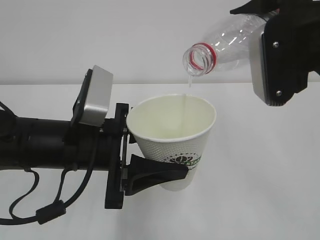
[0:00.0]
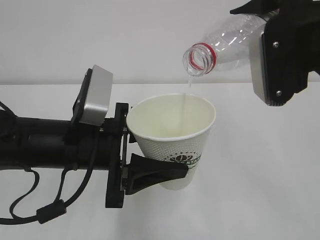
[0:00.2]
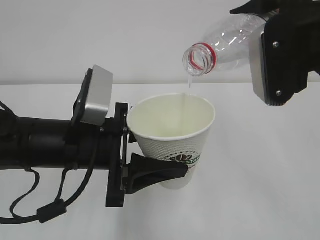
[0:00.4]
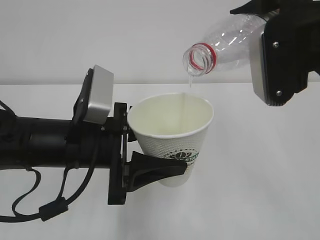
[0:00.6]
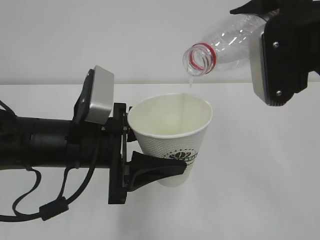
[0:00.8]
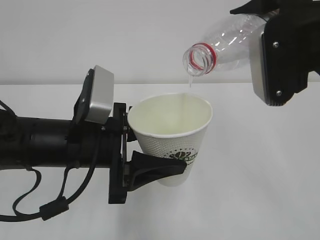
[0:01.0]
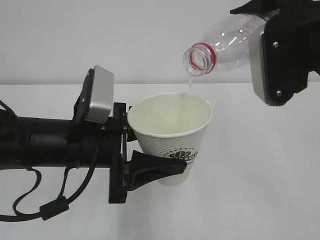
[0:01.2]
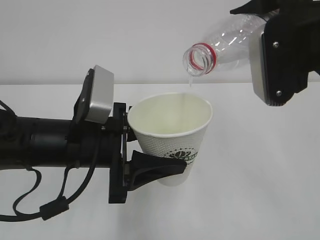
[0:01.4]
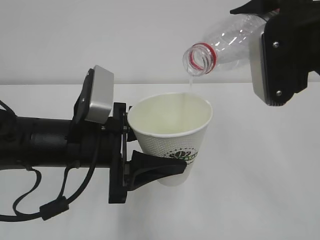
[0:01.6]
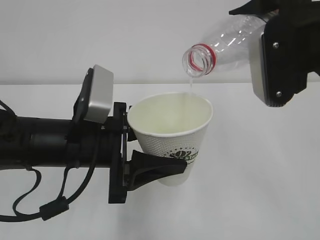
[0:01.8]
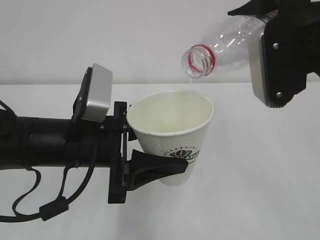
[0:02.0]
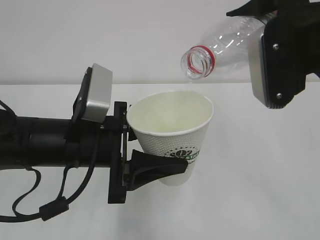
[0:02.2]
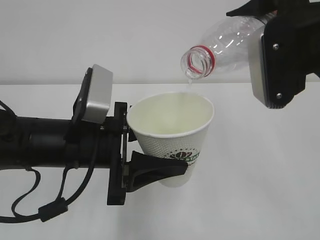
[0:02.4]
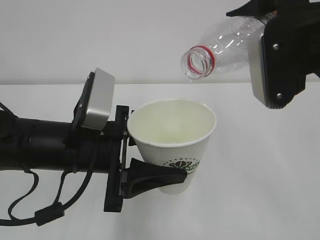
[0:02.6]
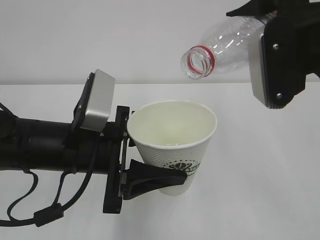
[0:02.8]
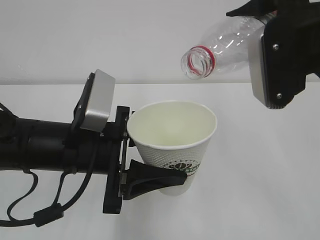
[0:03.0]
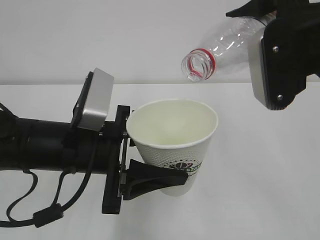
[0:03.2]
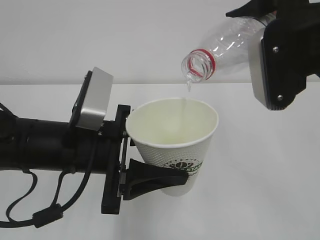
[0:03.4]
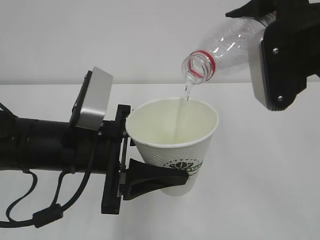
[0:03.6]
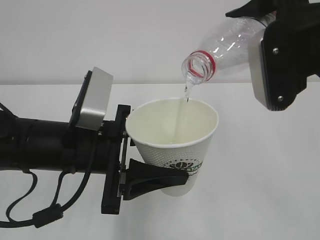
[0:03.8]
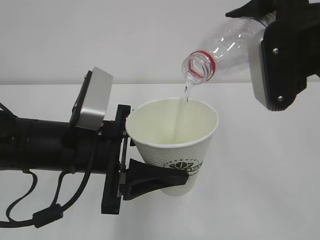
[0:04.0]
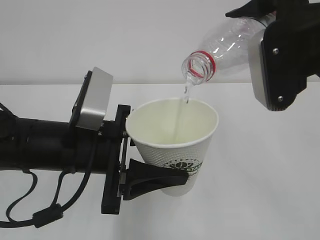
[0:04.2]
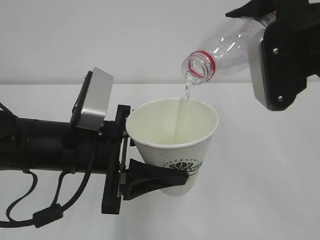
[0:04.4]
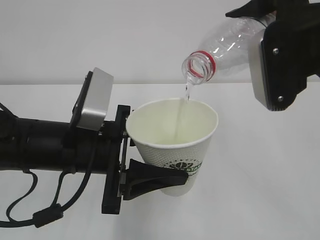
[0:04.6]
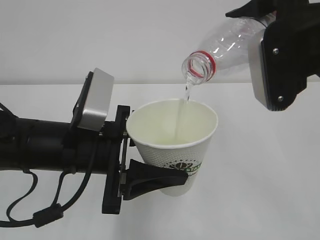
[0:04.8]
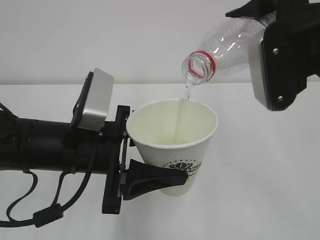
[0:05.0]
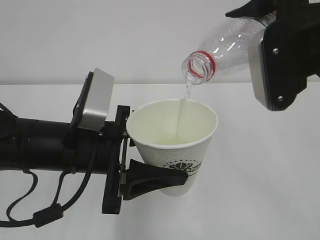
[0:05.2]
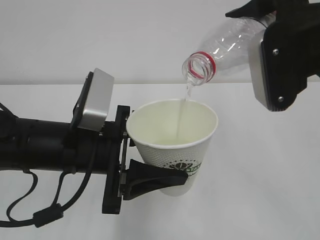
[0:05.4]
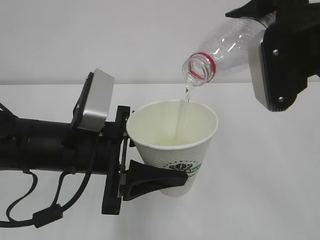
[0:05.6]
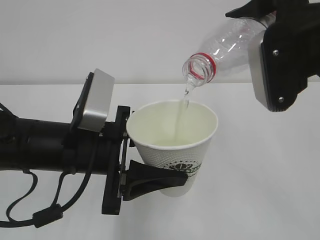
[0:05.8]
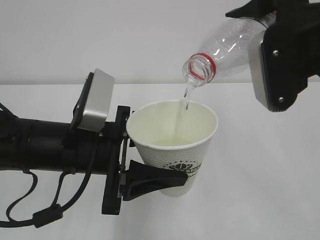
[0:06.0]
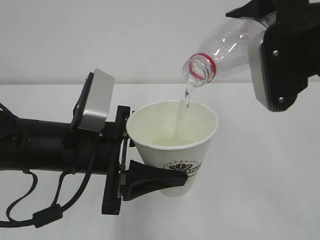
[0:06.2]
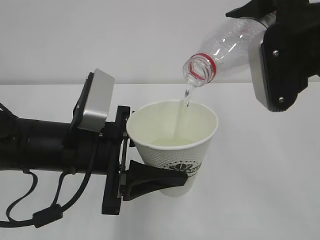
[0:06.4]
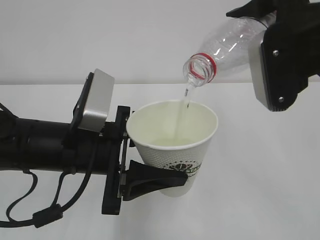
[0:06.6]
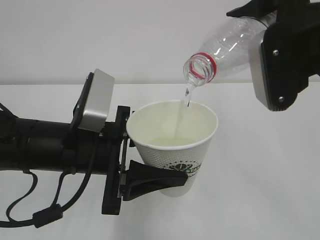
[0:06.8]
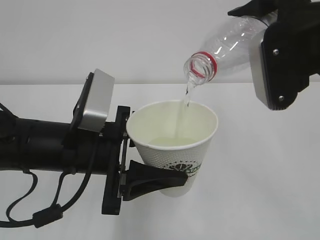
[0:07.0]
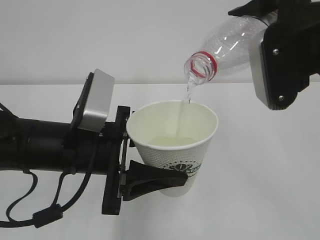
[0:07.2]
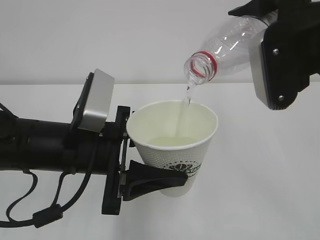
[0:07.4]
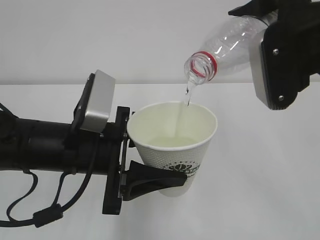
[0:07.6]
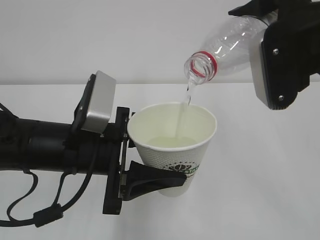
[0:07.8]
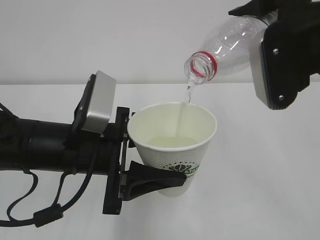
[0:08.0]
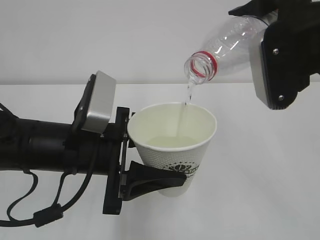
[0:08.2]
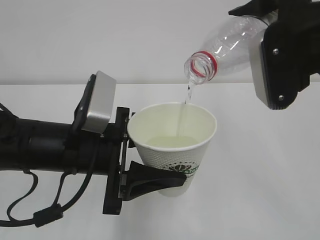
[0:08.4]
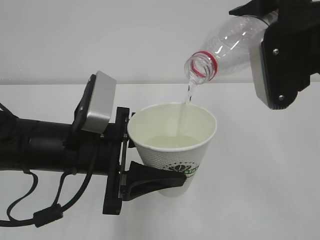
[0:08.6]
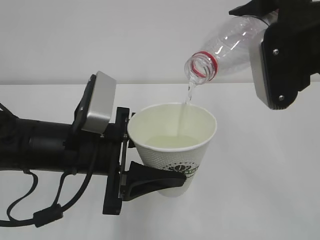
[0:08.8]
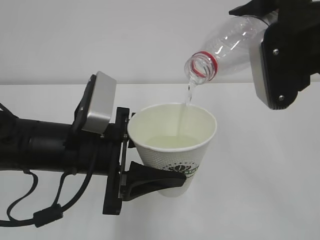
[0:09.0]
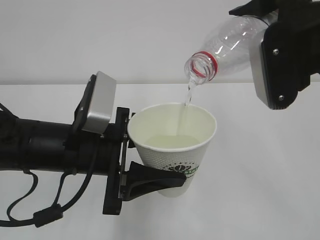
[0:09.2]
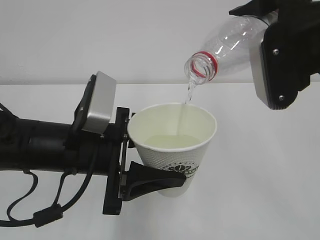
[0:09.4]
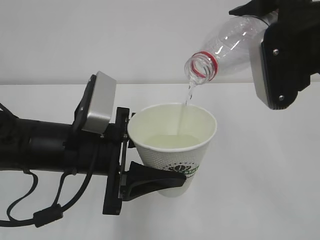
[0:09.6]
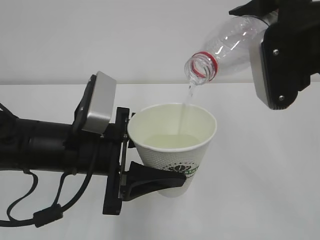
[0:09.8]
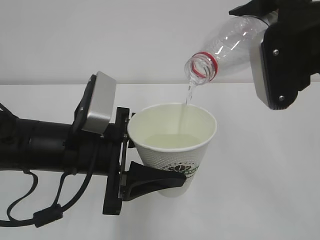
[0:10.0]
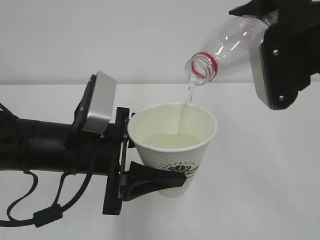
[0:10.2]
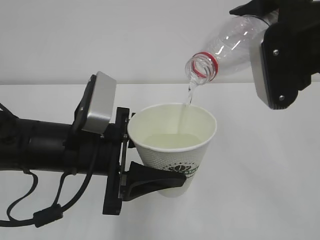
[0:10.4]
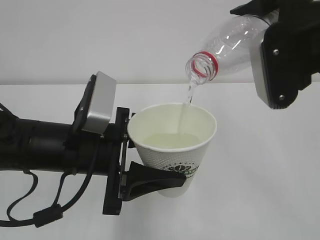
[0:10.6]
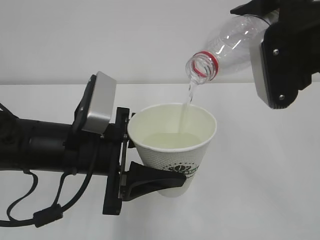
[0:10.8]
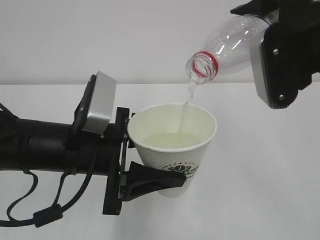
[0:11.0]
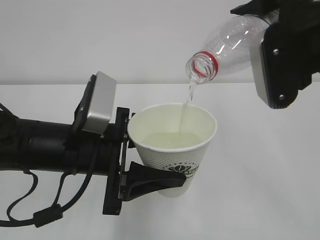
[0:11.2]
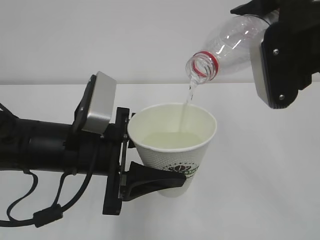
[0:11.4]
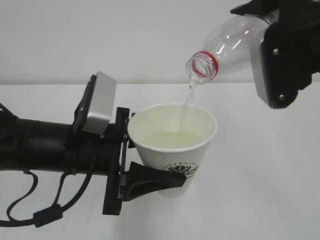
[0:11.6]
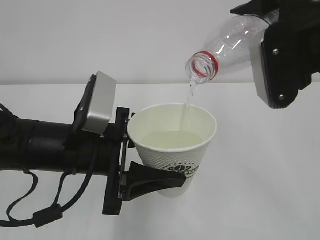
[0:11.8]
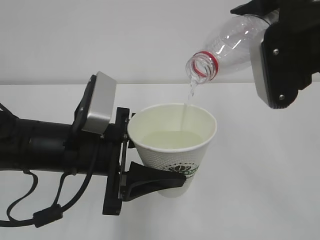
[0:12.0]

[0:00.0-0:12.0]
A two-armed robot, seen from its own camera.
0:00.0 to 0:09.0: The two grippers keep their place.
0:09.0 to 0:12.0: Both grippers stay put.

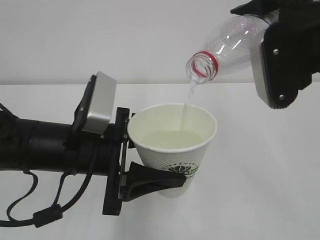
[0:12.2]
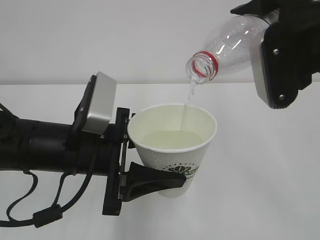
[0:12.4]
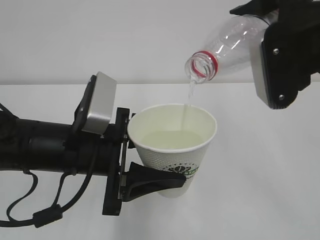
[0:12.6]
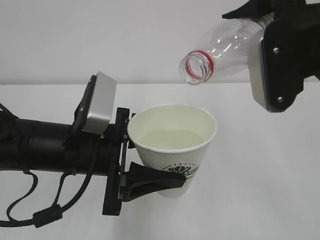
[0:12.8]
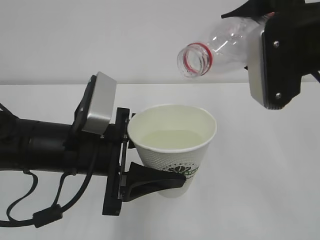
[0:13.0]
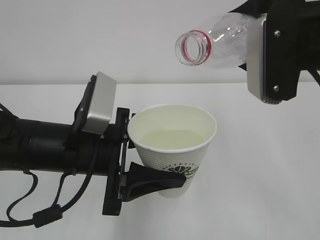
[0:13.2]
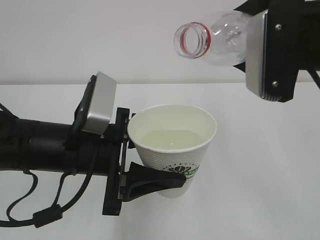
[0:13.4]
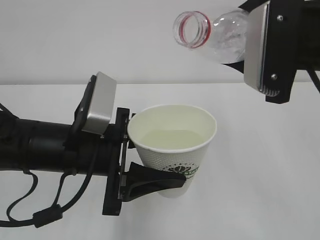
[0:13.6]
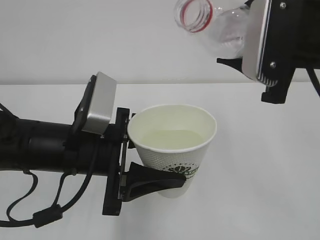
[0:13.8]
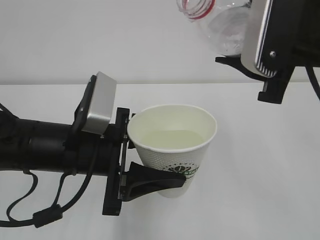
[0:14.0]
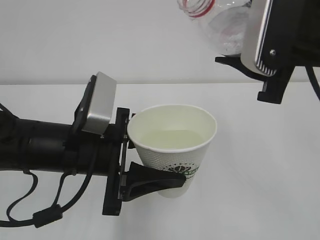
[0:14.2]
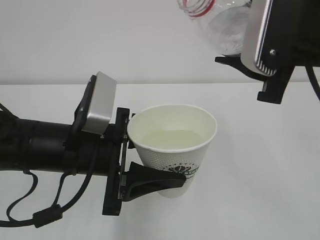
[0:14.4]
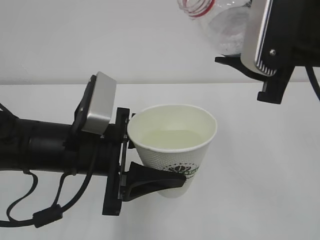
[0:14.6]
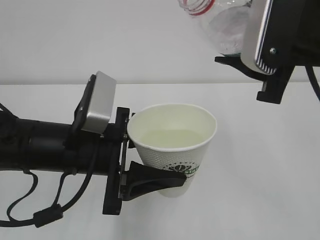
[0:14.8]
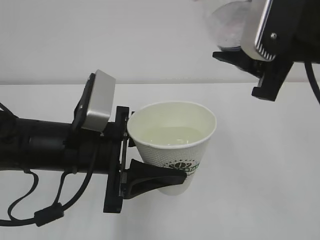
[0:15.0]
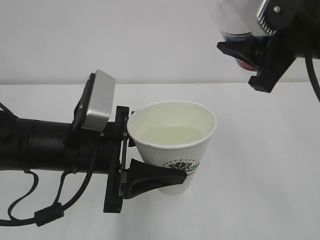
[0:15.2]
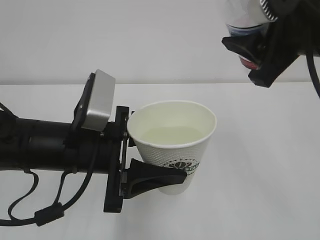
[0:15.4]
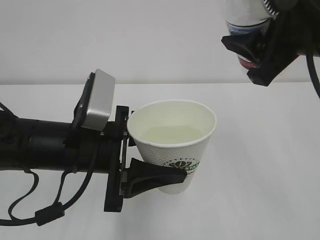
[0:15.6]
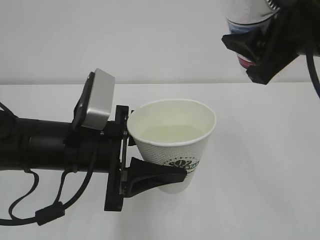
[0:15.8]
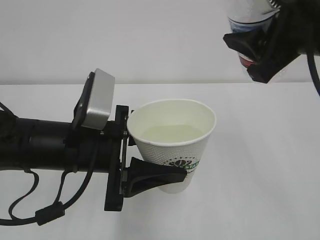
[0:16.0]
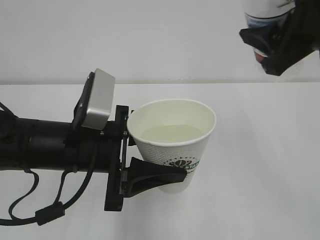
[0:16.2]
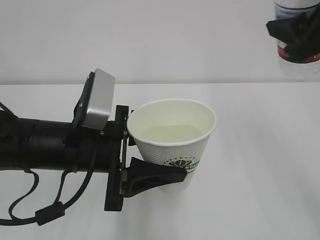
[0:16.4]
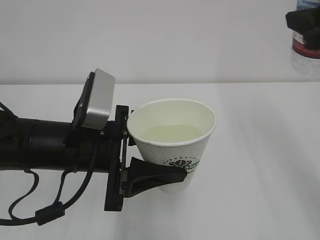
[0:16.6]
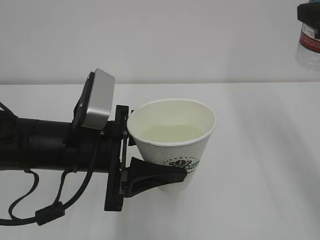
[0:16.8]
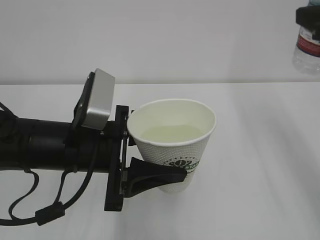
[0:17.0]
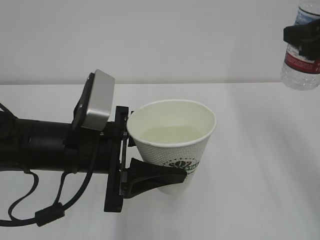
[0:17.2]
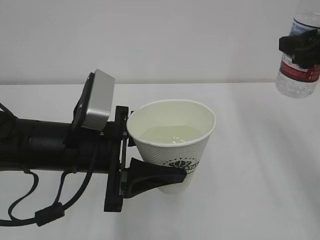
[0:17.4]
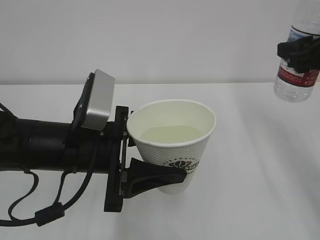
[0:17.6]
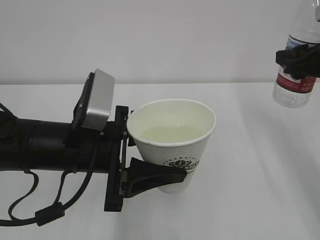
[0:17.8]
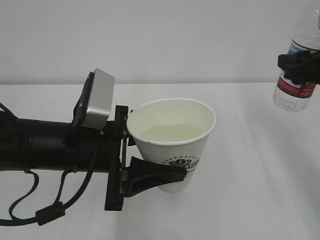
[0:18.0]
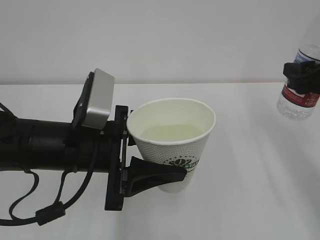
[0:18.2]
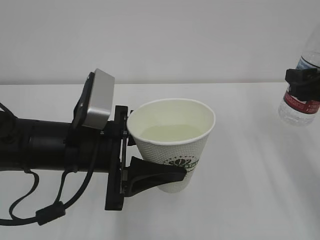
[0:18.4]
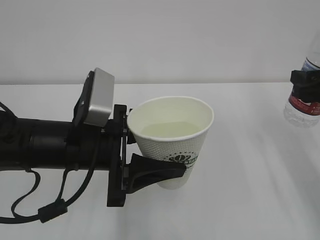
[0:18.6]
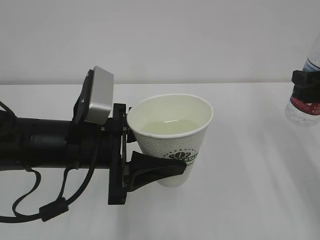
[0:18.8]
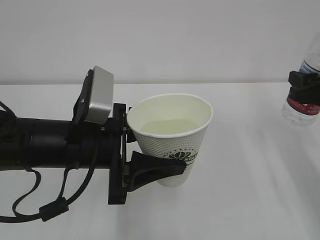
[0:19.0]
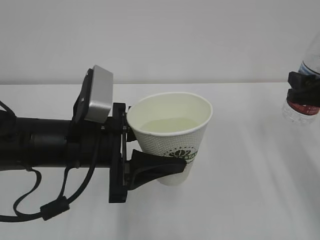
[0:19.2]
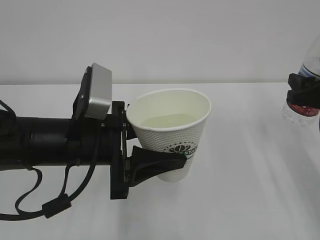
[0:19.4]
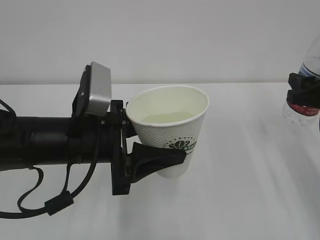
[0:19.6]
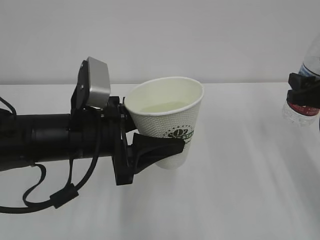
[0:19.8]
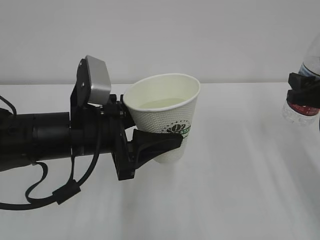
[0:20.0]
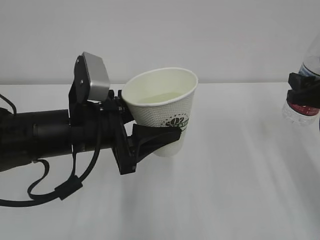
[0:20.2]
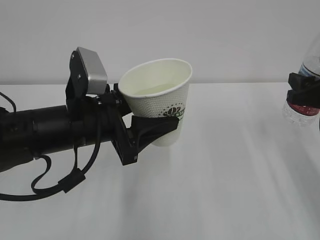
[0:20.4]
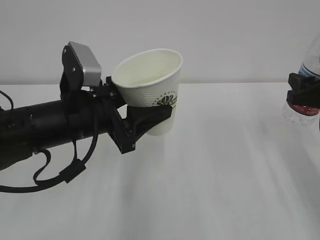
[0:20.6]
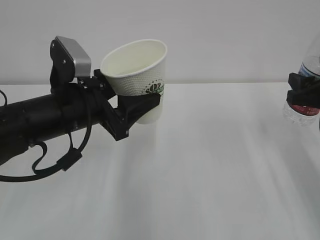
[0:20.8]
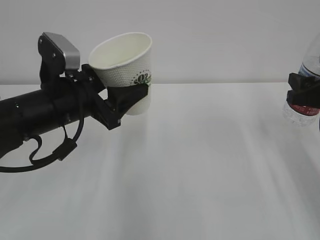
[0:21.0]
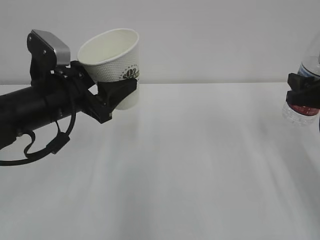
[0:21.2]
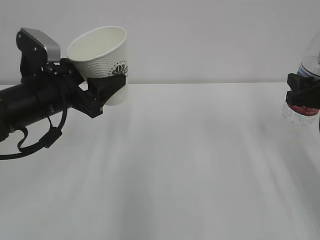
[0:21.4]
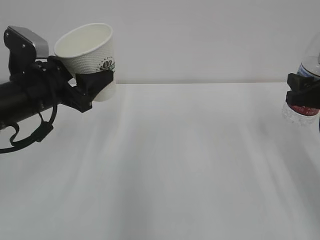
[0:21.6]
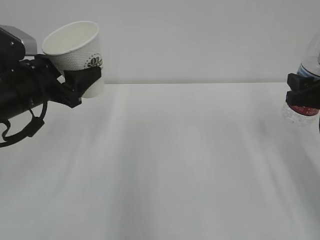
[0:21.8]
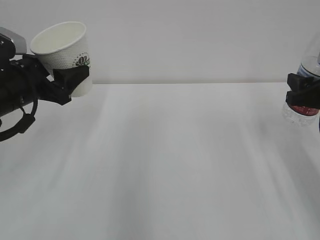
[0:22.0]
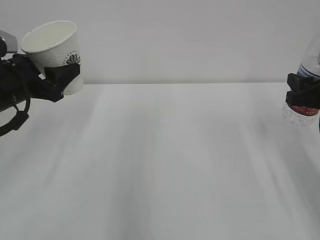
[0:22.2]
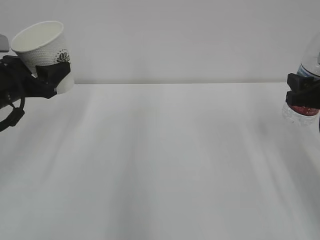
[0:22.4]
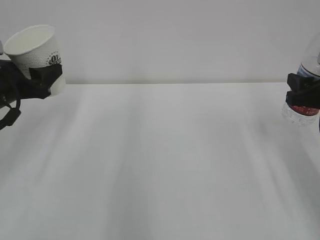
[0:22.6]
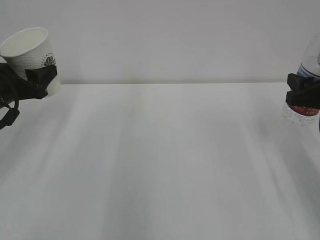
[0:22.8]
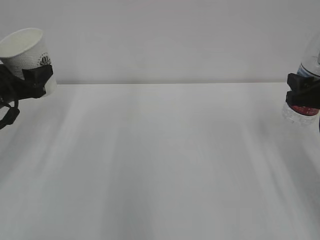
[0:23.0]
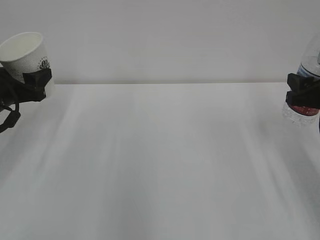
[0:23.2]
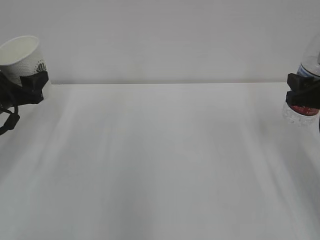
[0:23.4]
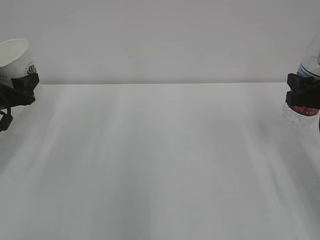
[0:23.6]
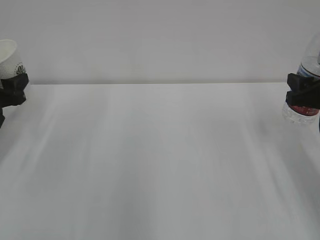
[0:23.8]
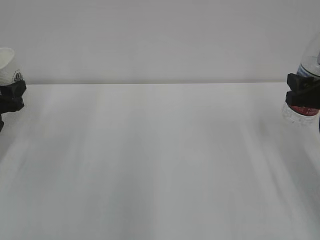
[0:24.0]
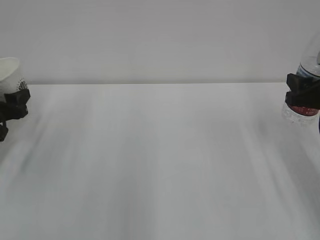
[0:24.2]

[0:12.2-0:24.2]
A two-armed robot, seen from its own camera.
0:15.2 to 0:16.6: The right gripper travels to the right by some 10 cm.
0:16.6 to 0:18.2: The right gripper heads downward, covering roughly 10 cm.
0:18.2 to 0:19.8: The grippers stay close to where they were, moving slightly.
0:19.8 to 0:21.2: The left gripper goes approximately 10 cm forward and to the left.
0:21.2 to 0:22.6: The left gripper moves to the left, roughly 10 cm.
0:22.6 to 0:24.2: The left gripper travels to the left and downward by approximately 10 cm.
